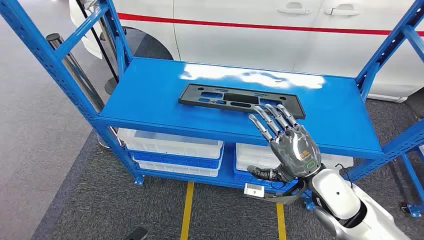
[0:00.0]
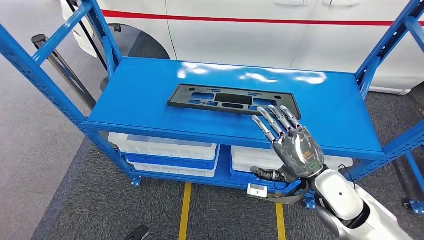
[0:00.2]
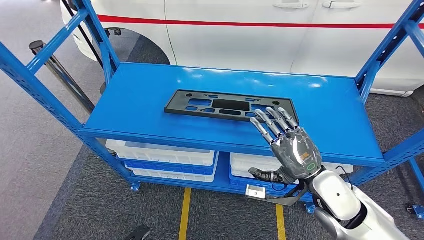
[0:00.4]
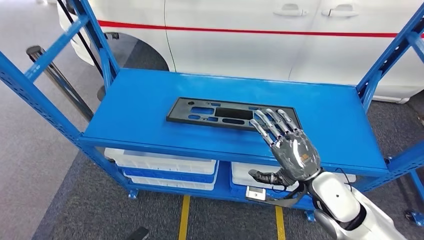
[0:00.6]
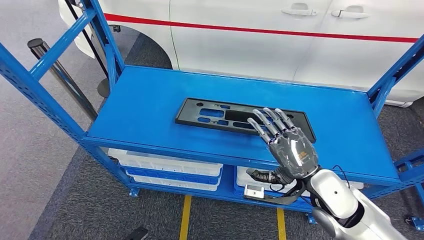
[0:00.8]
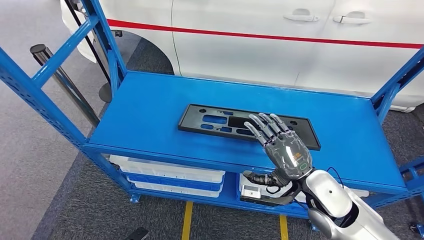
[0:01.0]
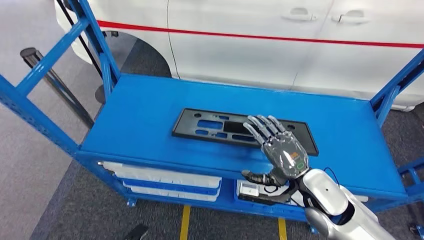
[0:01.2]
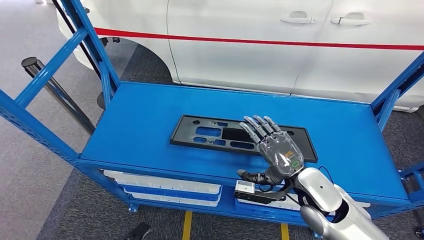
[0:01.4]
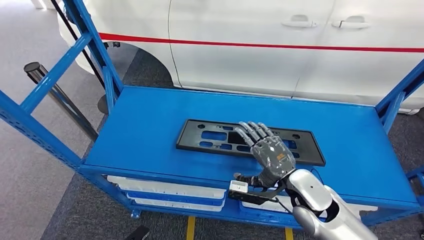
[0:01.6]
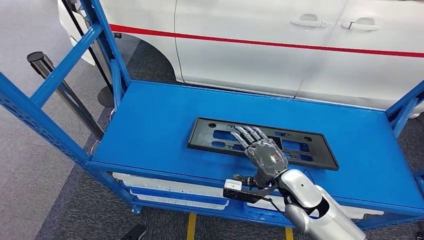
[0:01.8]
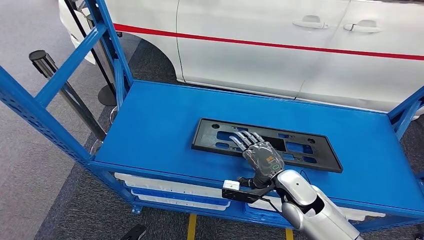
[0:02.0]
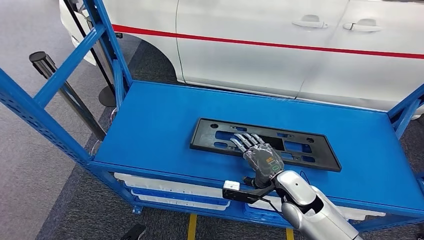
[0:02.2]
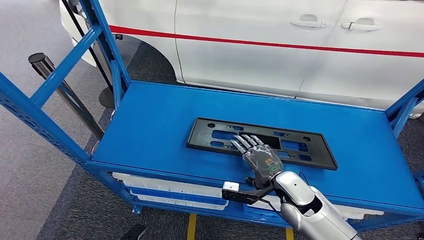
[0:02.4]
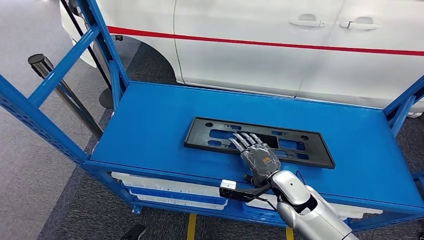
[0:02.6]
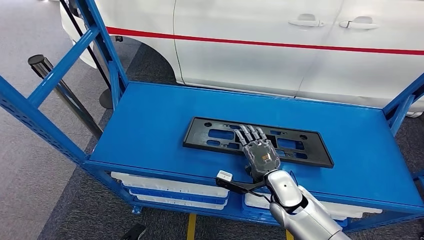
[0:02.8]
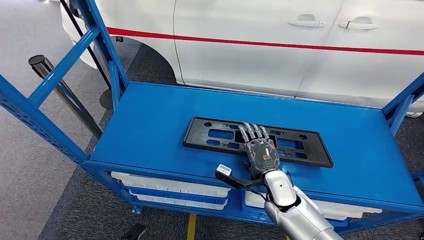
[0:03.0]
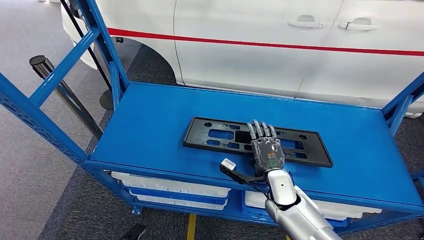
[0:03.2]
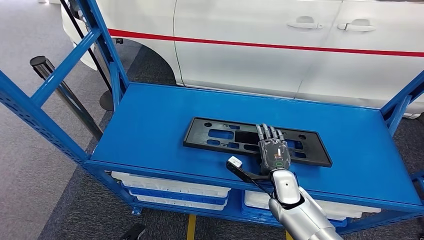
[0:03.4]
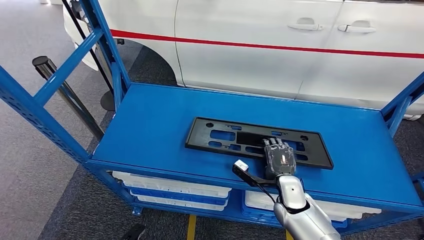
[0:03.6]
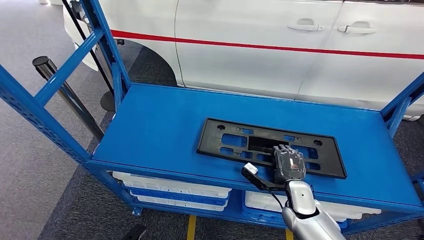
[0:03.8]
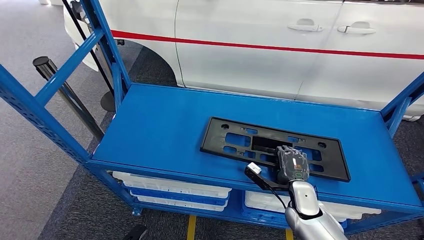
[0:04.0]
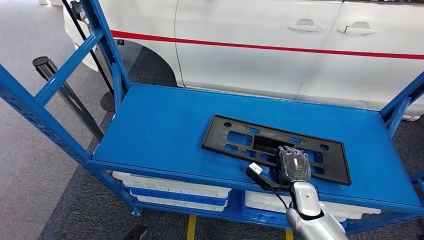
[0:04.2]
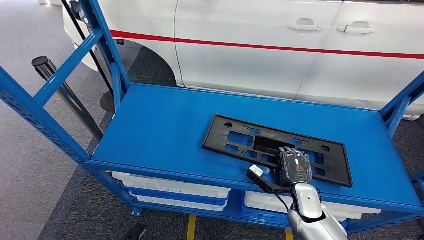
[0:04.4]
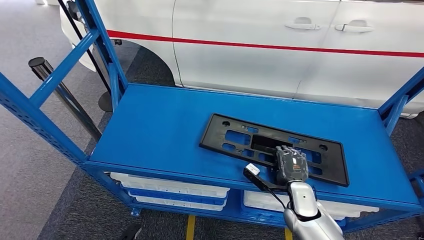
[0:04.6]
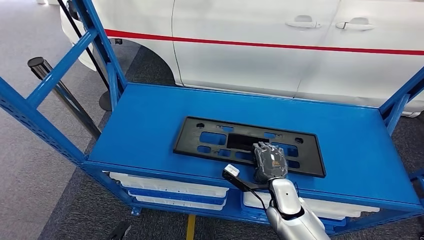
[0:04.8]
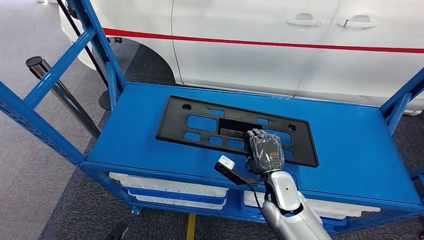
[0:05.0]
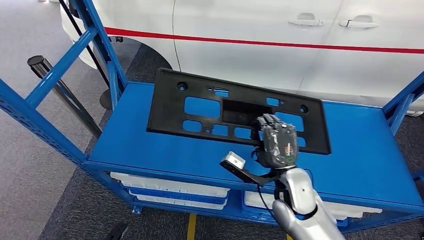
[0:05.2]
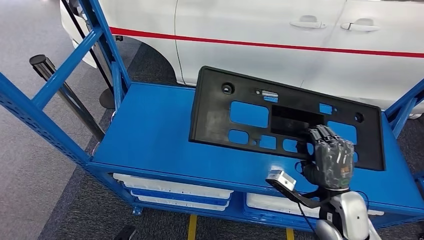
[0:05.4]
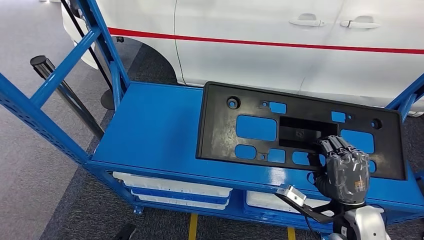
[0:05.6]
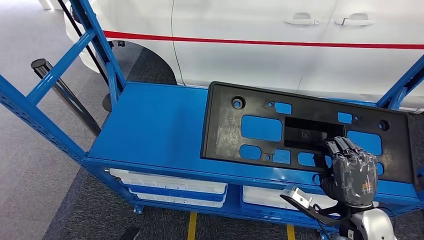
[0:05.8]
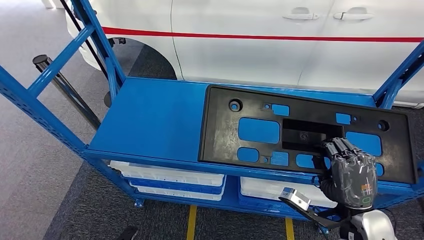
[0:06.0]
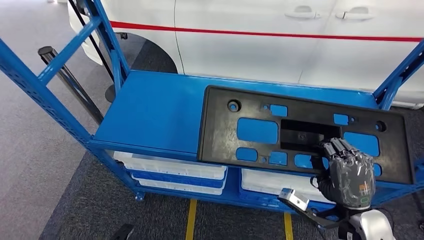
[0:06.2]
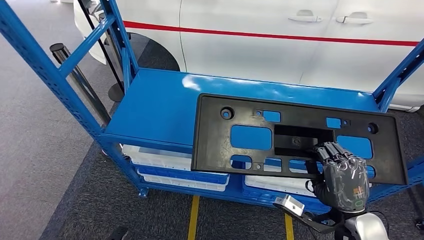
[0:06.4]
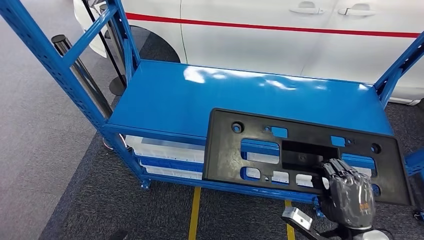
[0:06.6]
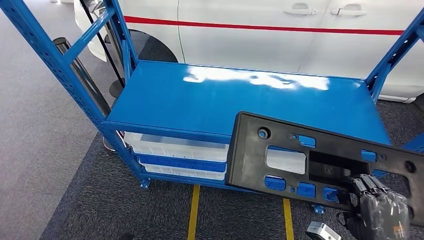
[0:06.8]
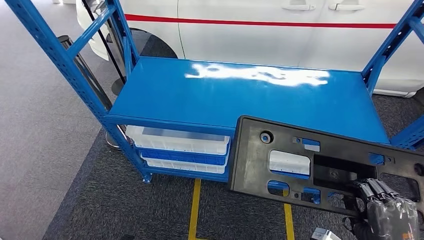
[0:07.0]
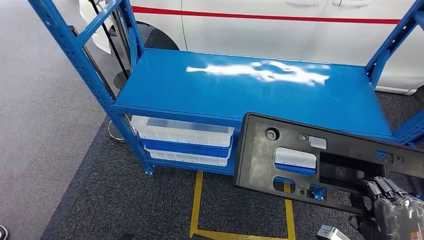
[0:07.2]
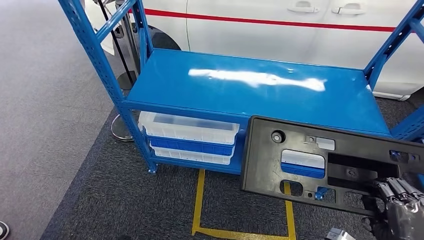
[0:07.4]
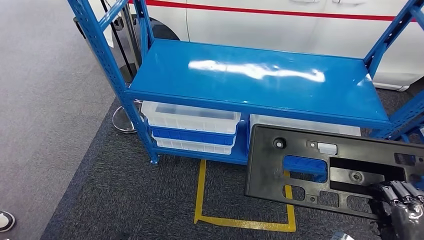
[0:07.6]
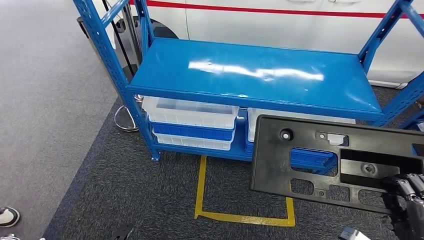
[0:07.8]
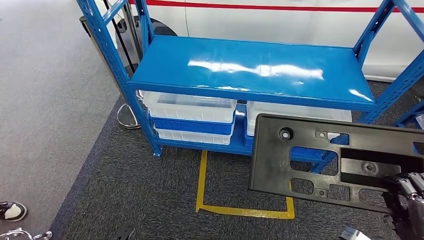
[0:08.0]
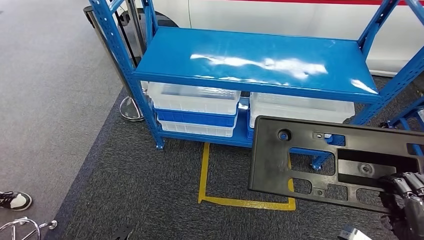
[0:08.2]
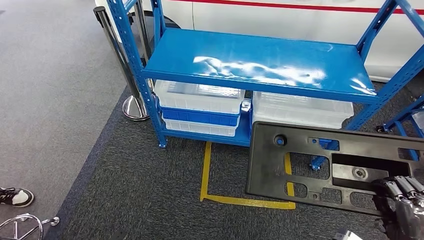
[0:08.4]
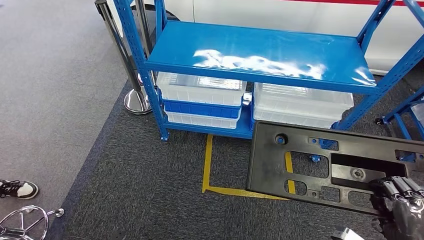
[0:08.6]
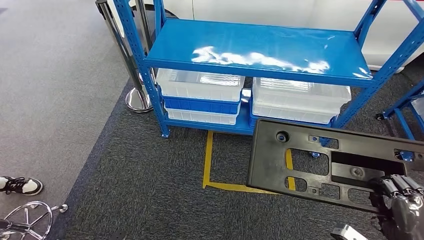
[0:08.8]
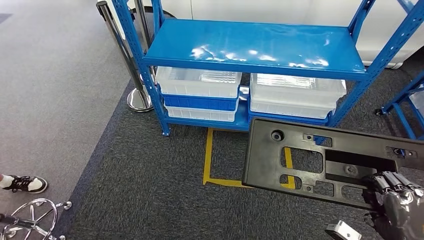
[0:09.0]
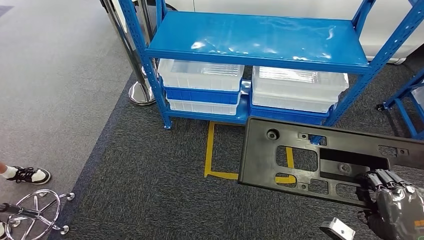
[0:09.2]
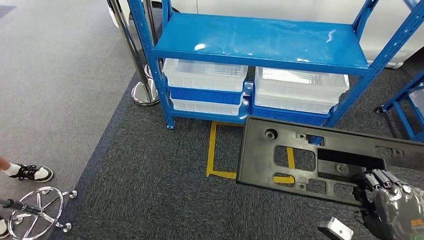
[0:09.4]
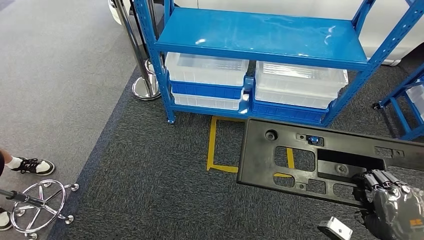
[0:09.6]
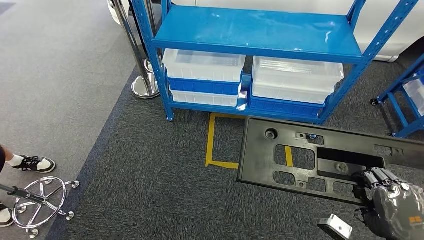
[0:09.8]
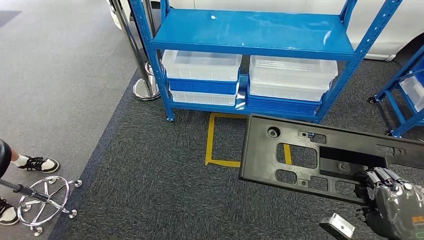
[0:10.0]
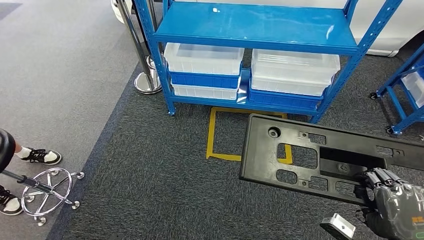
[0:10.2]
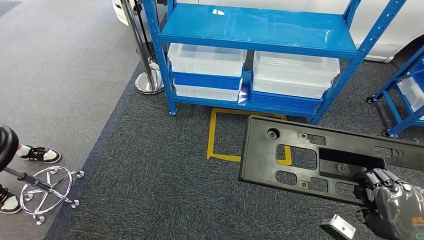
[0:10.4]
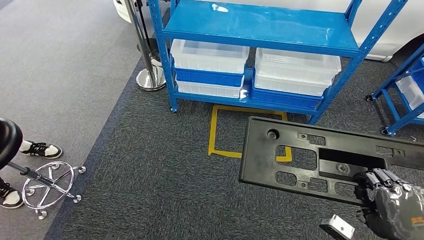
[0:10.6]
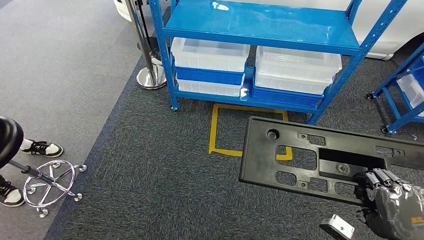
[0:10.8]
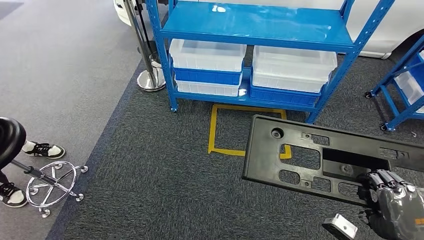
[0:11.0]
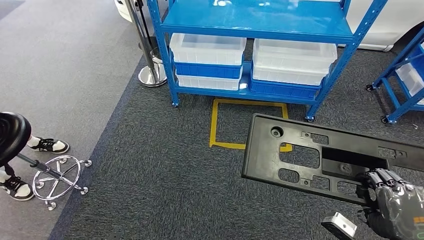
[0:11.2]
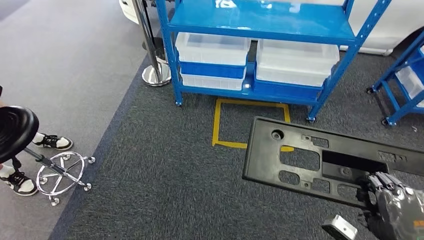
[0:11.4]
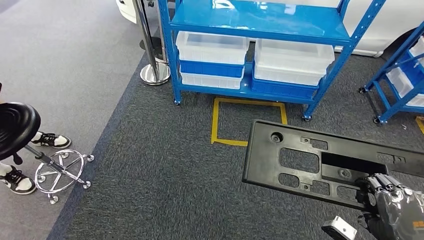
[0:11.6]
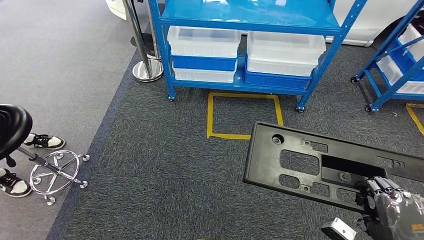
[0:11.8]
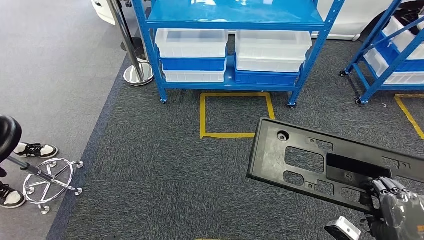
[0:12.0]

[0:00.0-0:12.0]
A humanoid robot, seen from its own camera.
Step, 0:00.0 to 0:05.8: Pick up the large material from the shelf.
0:03.0 to 0:04.4: The right hand goes some 10 cm to the right and downward.

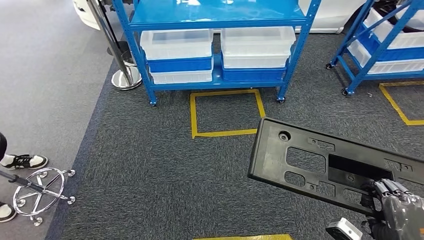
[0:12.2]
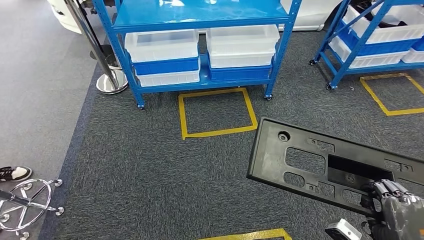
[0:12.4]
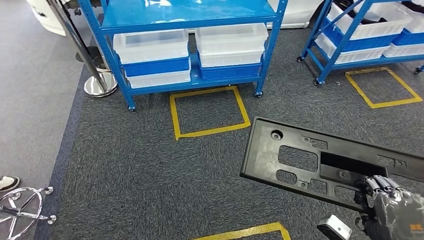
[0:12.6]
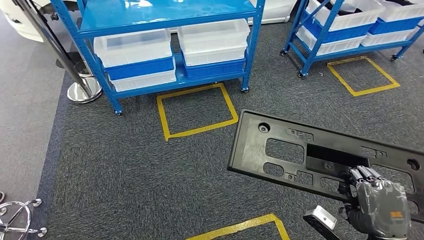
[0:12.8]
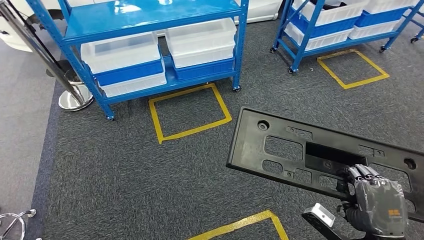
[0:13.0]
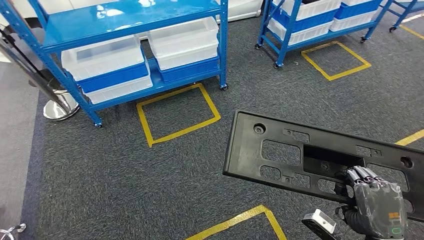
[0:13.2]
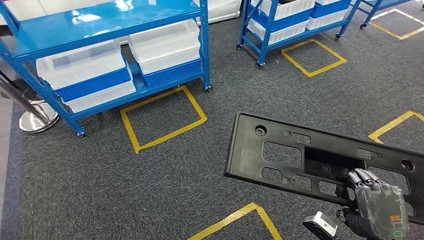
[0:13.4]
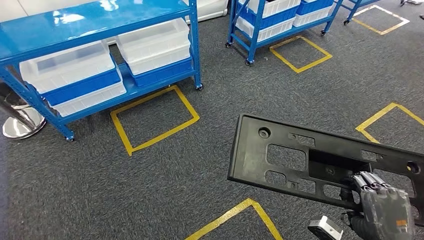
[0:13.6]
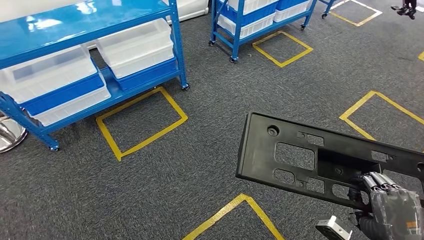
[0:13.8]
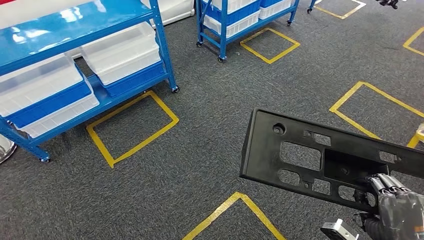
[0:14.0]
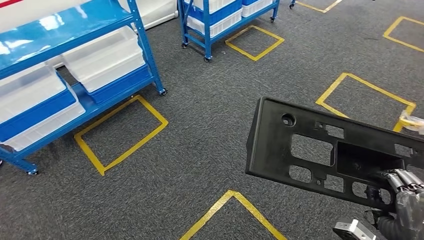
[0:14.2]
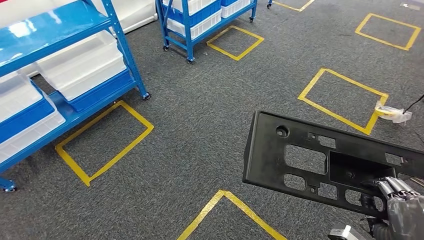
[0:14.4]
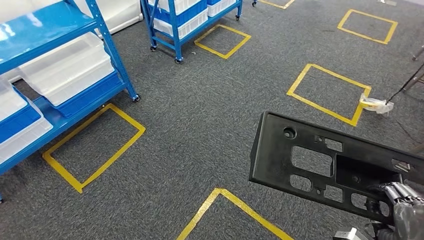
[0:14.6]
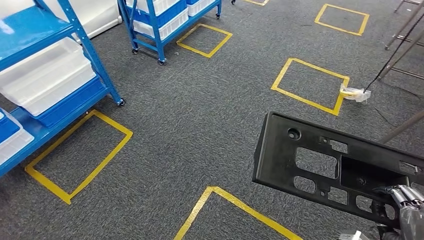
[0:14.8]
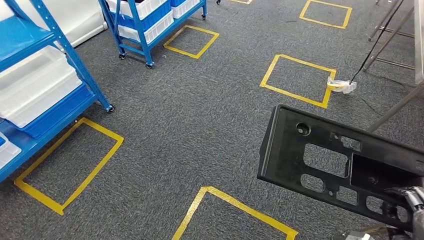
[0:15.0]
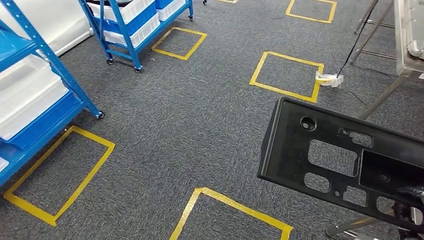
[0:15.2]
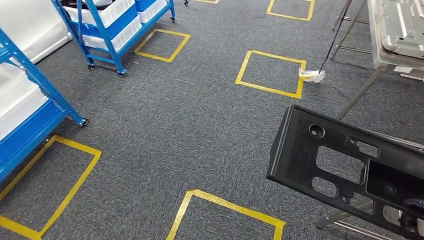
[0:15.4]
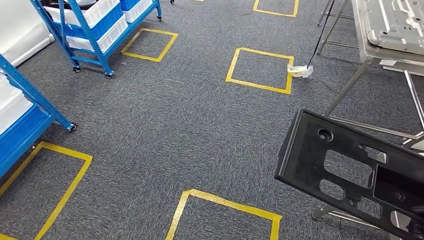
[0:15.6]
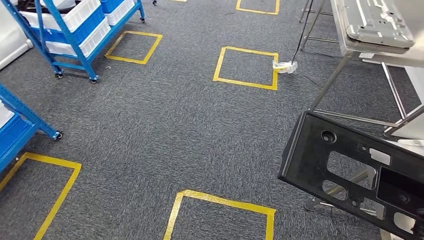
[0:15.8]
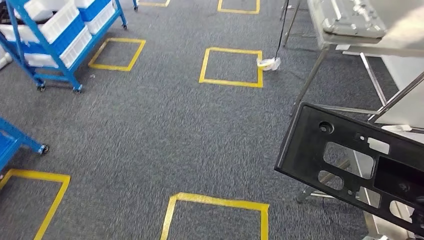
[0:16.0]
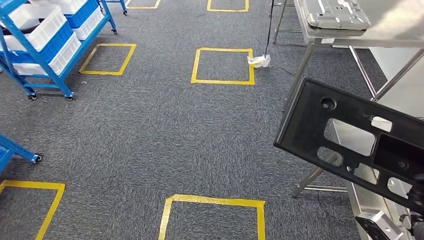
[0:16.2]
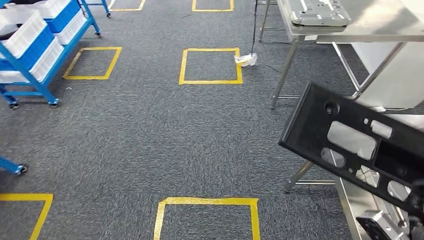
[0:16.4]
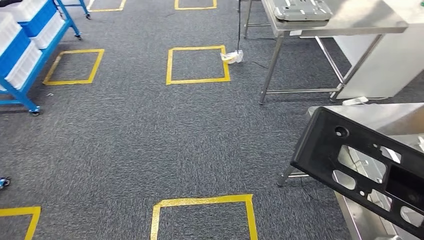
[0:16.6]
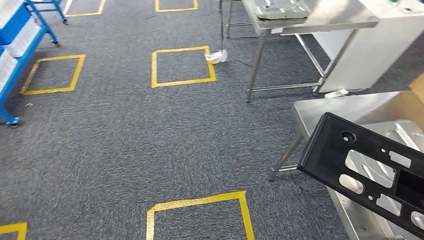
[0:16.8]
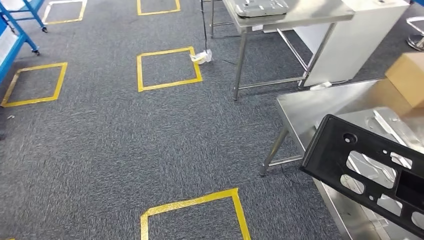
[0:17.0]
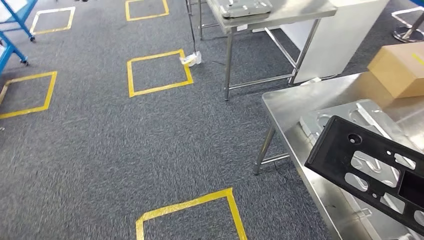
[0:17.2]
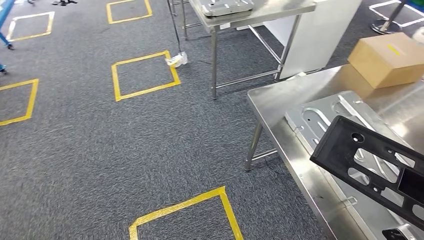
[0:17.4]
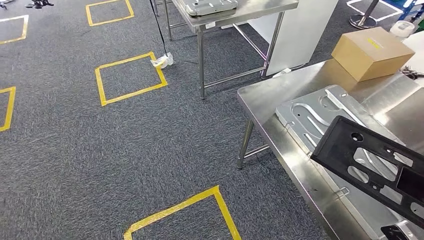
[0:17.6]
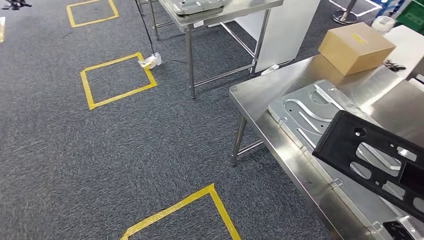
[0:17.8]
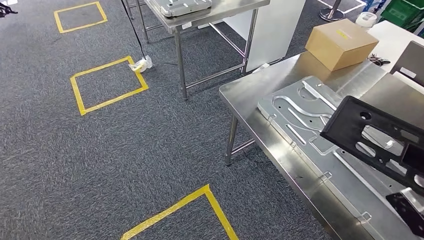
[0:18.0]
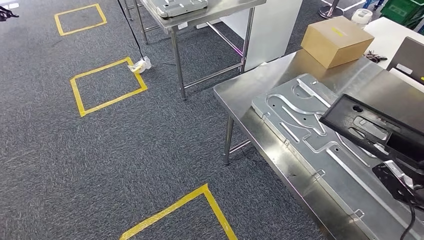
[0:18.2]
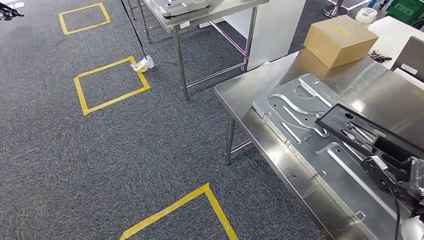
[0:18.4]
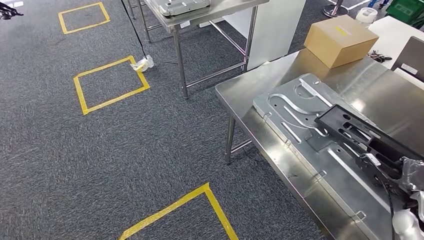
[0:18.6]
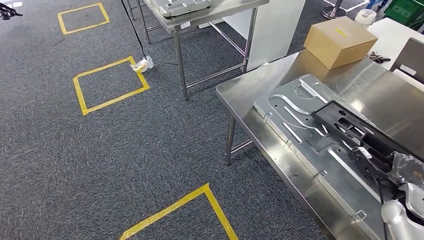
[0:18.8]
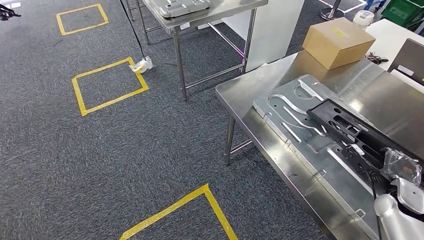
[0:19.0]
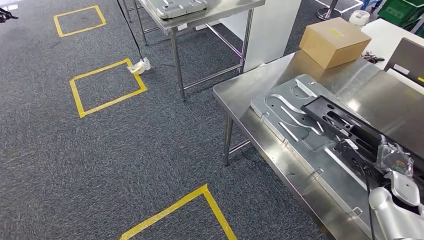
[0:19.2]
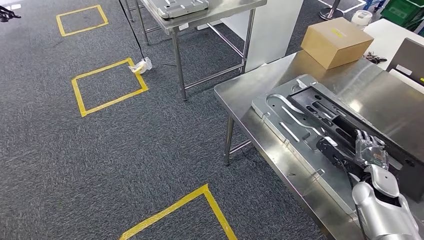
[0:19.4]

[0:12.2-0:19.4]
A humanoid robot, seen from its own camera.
Step, 0:12.2 to 0:16.8: Move the large material to the workbench.
